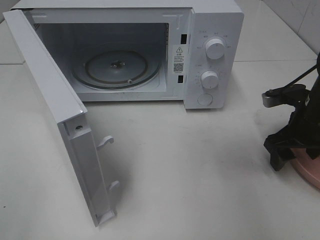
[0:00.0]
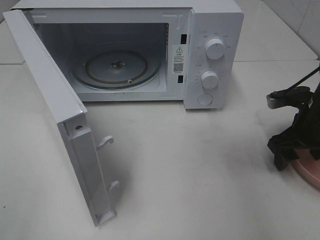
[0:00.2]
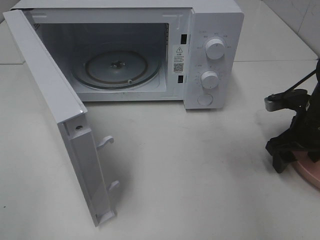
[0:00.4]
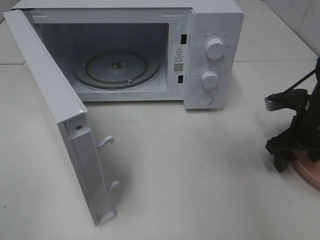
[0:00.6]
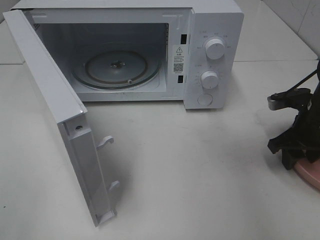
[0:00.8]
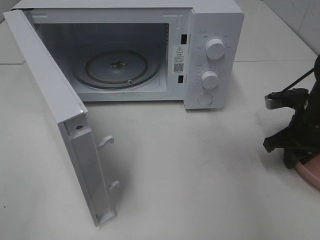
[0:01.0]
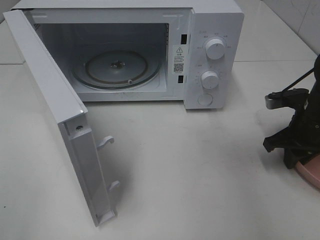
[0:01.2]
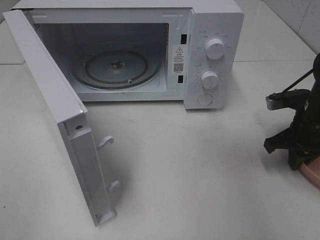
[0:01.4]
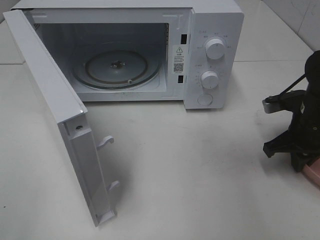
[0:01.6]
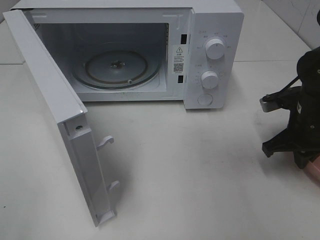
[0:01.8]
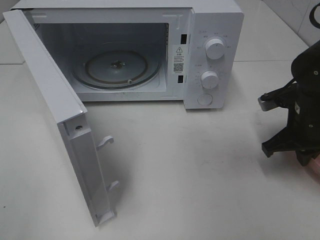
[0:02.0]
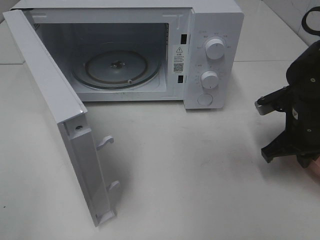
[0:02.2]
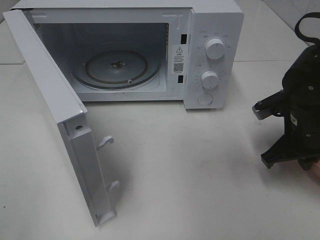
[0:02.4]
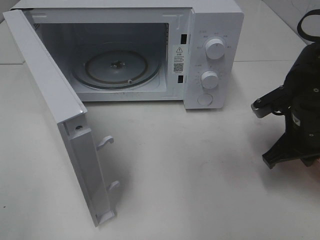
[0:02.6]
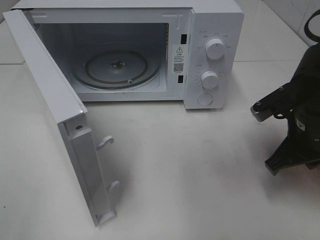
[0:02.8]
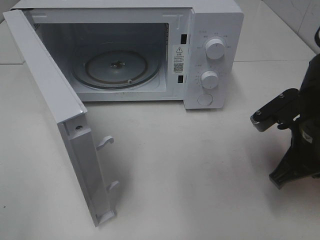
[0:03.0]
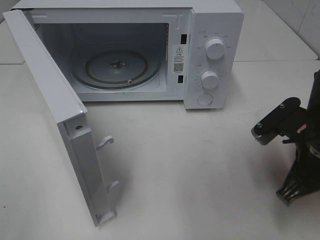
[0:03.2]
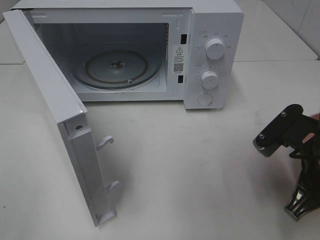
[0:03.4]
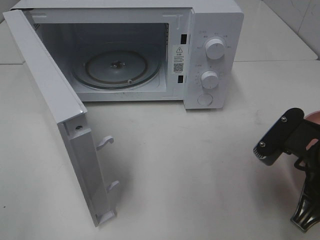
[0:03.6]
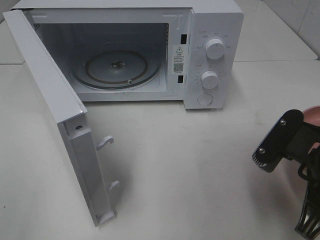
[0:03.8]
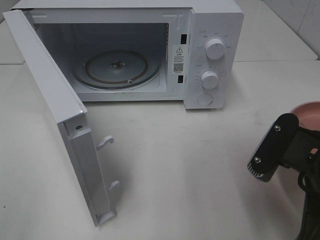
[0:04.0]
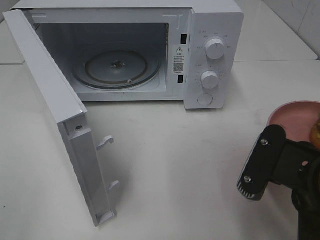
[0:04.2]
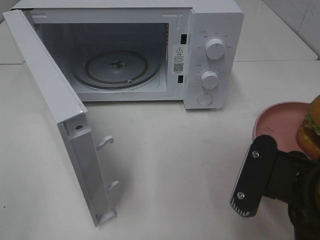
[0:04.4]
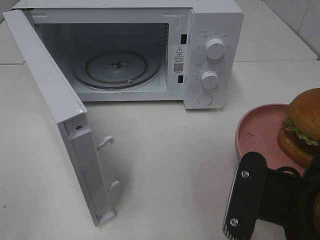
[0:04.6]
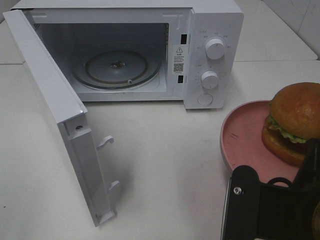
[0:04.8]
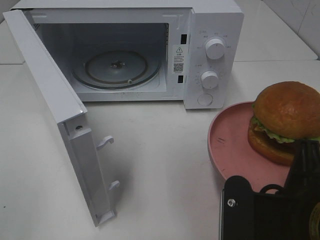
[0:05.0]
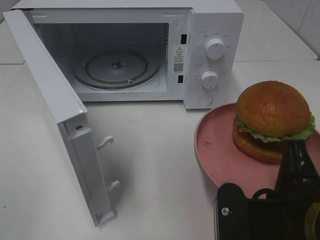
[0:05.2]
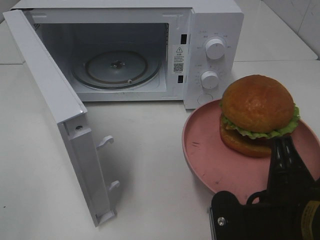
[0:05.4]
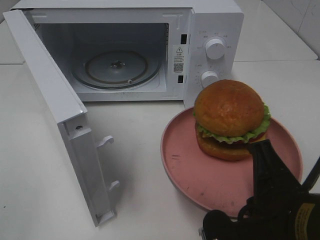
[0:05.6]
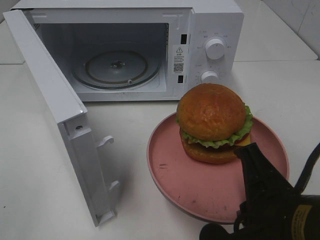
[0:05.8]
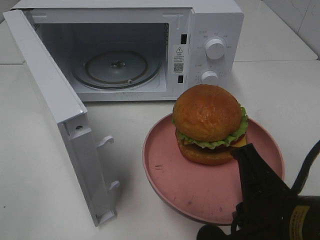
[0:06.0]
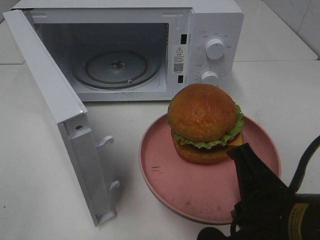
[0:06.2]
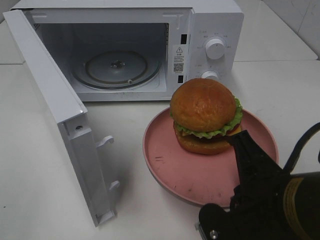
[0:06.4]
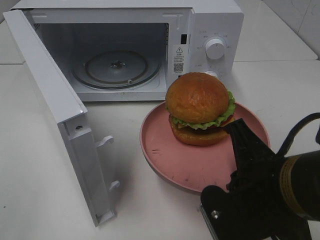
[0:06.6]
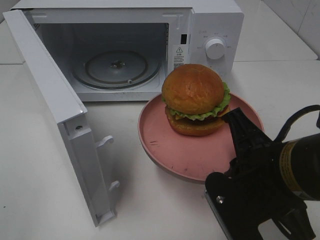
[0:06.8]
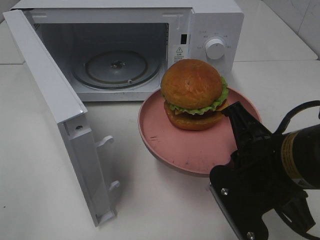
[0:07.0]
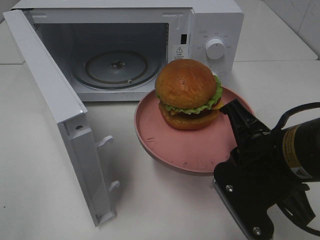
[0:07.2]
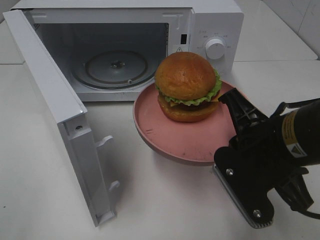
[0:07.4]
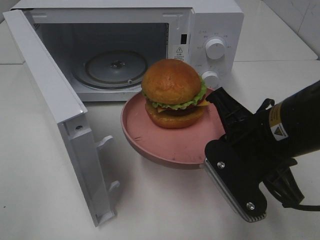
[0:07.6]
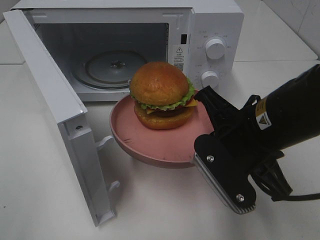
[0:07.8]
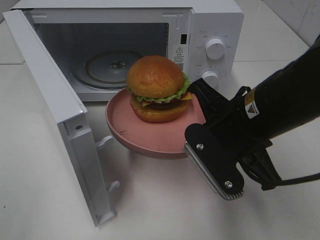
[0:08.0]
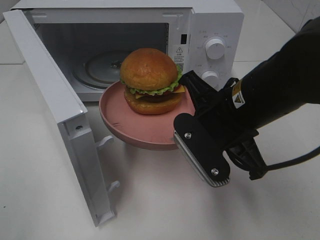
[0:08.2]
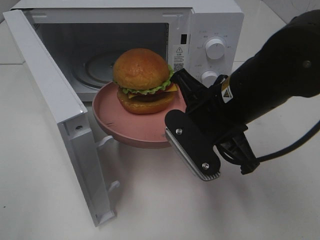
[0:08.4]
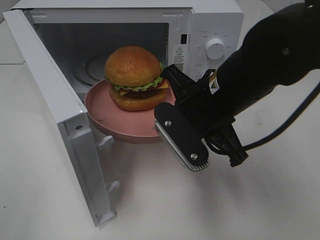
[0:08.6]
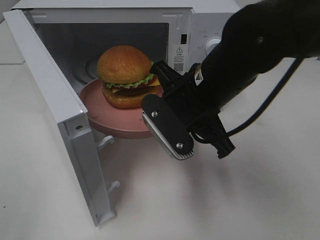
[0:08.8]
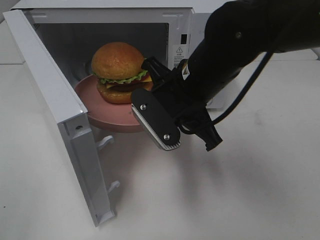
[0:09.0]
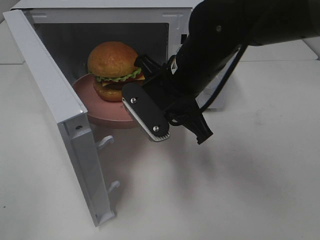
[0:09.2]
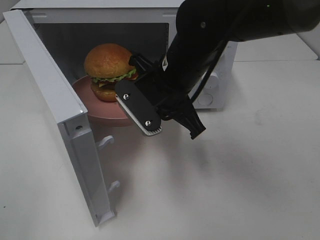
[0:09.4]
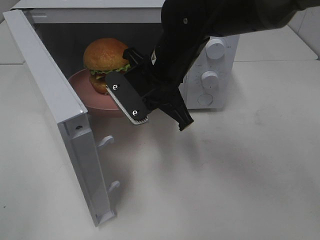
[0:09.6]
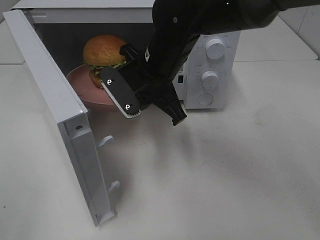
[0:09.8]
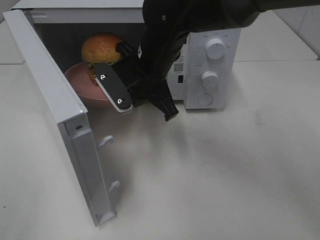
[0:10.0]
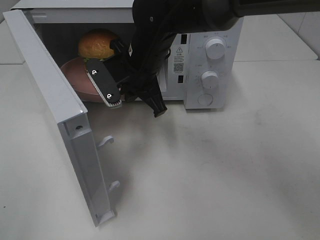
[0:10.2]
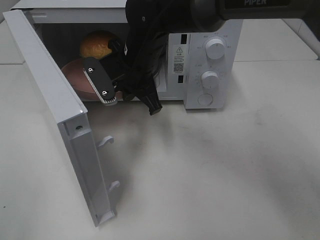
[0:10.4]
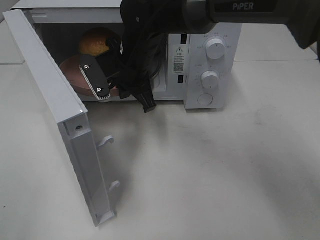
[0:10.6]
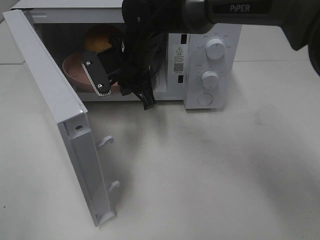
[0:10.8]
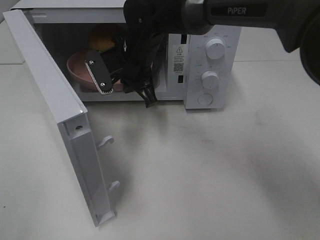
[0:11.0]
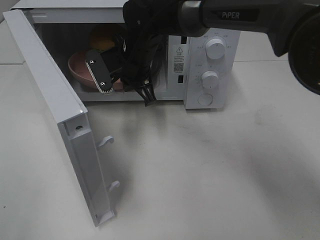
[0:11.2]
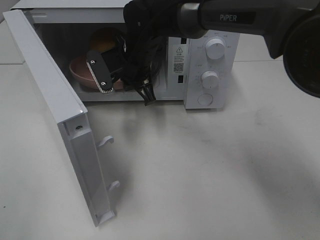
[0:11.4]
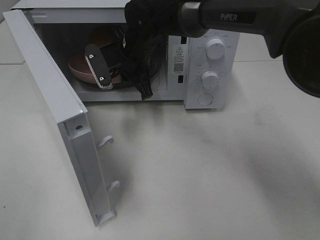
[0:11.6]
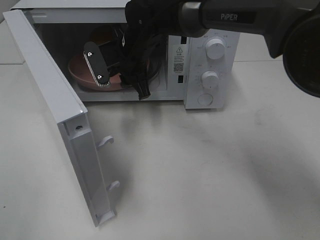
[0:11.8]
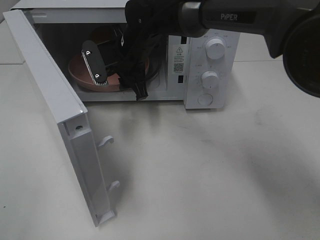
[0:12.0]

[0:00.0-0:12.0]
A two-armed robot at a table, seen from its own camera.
Task of the whole recording: Heat the burger.
Step, 0:02.0 to 0:12.0: Right hand: place the plate in the microwave.
0:00.0 to 0:01.6: The right gripper closes its fingers.
0:01.6 to 0:03.0: The right gripper travels backward and to the left by about 10 cm.
0:03.0 to 0:04.4: The right gripper heads backward and to the left, covering some 15 cm.
0:06.0 to 0:07.6: The right gripper is displaced forward by about 10 cm.
0:07.6 to 0:09.0: The right gripper heads forward and to the left, covering approximately 10 cm.
0:09.0 to 0:10.4: The right gripper shifts about 15 cm forward and to the left.
0:10.4 to 0:12.0: The right gripper opens.

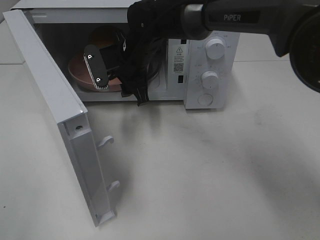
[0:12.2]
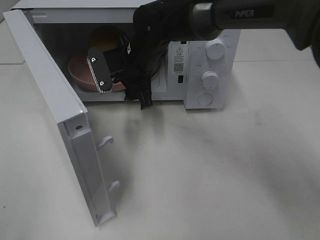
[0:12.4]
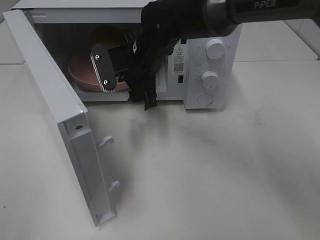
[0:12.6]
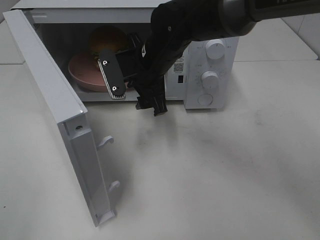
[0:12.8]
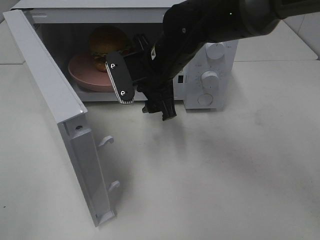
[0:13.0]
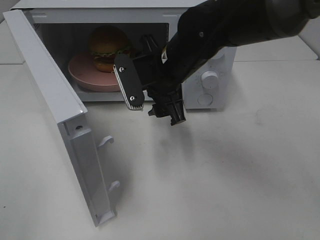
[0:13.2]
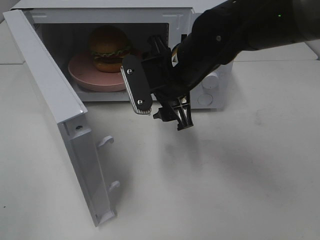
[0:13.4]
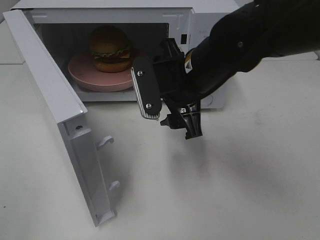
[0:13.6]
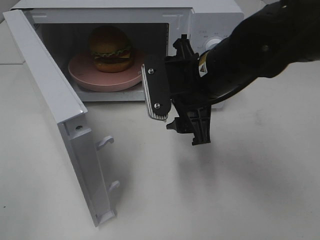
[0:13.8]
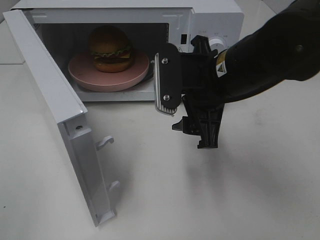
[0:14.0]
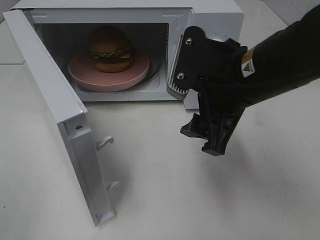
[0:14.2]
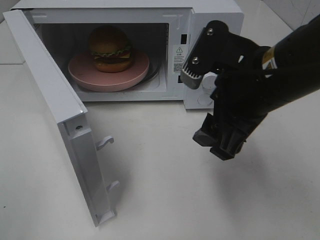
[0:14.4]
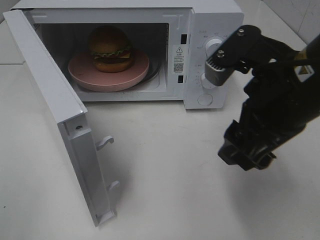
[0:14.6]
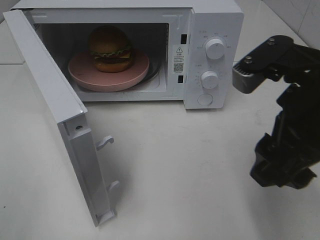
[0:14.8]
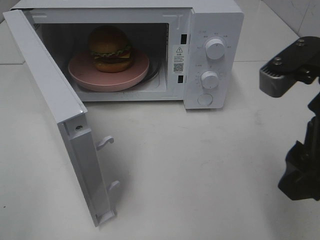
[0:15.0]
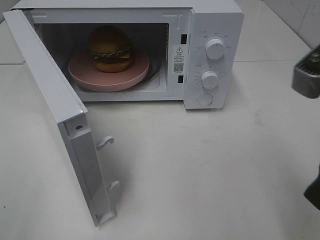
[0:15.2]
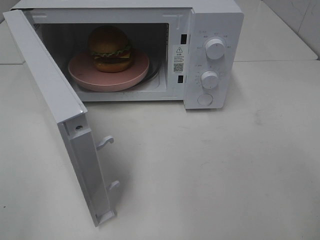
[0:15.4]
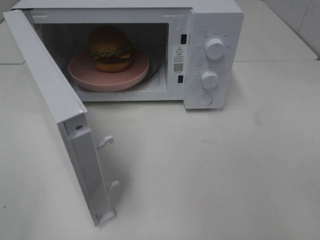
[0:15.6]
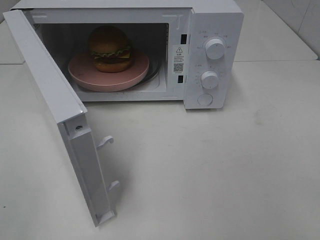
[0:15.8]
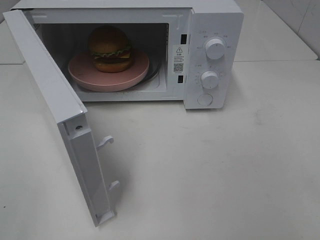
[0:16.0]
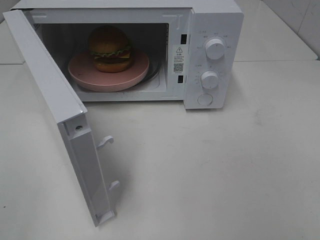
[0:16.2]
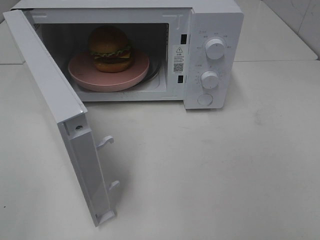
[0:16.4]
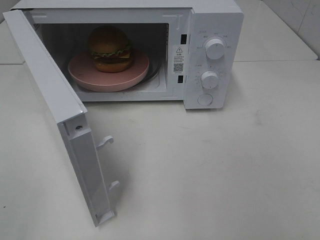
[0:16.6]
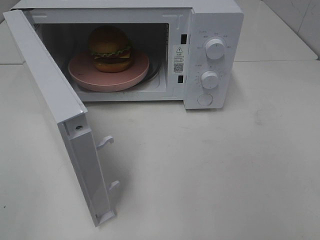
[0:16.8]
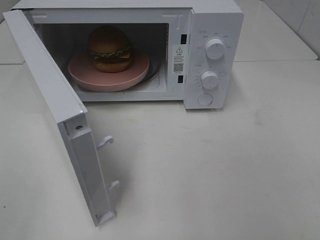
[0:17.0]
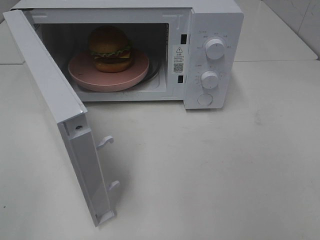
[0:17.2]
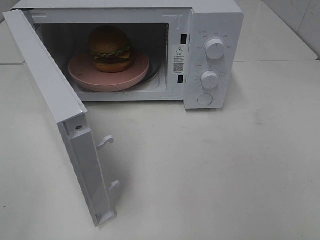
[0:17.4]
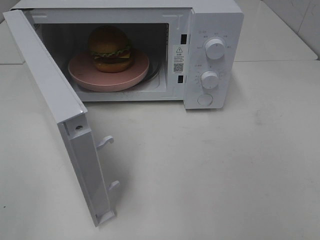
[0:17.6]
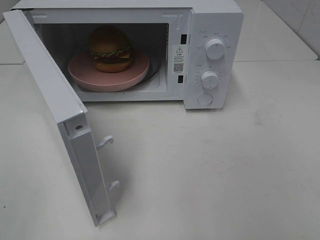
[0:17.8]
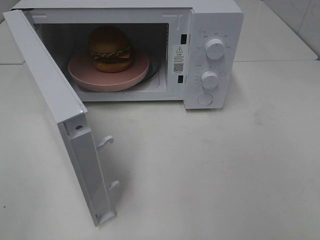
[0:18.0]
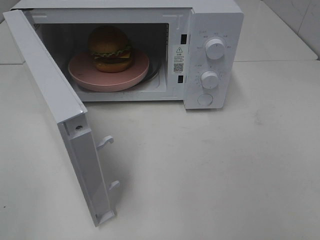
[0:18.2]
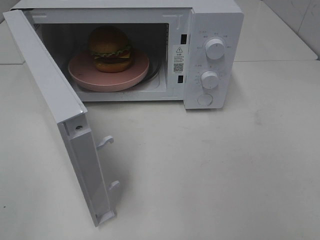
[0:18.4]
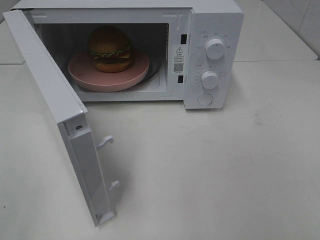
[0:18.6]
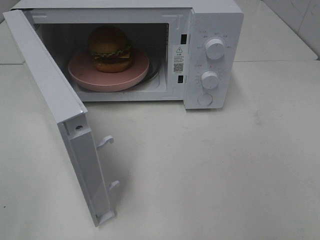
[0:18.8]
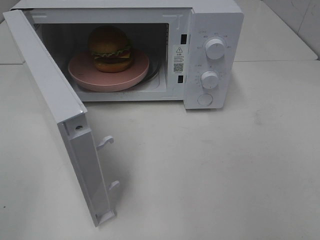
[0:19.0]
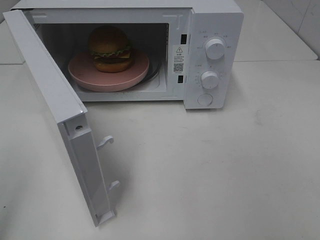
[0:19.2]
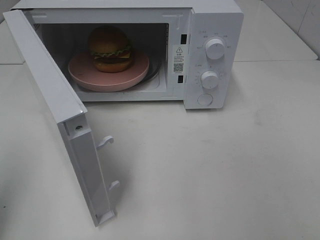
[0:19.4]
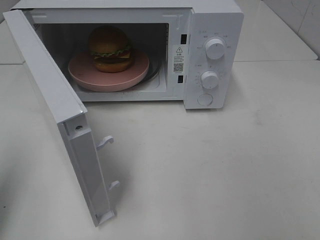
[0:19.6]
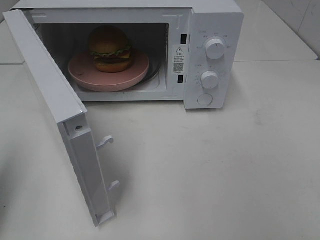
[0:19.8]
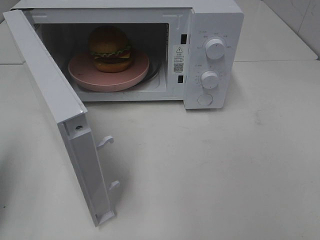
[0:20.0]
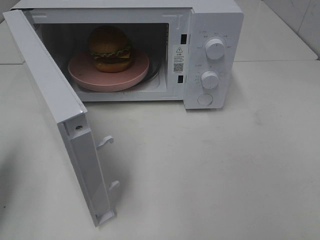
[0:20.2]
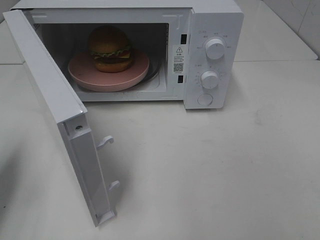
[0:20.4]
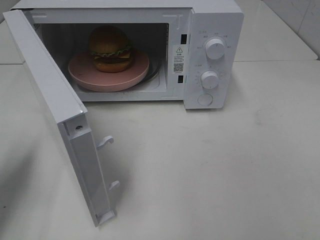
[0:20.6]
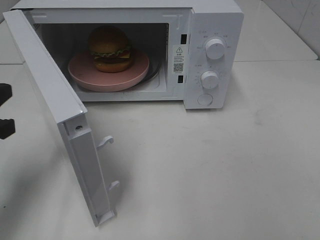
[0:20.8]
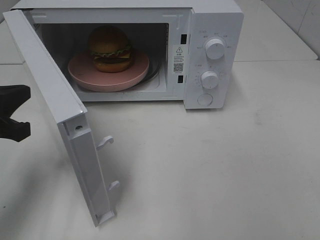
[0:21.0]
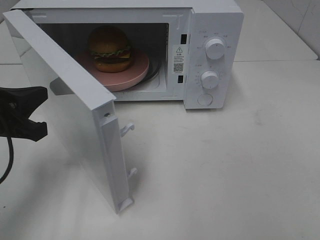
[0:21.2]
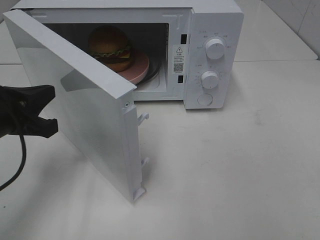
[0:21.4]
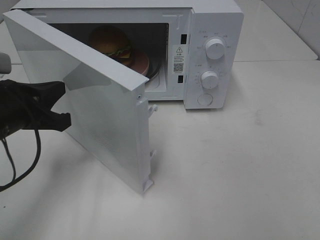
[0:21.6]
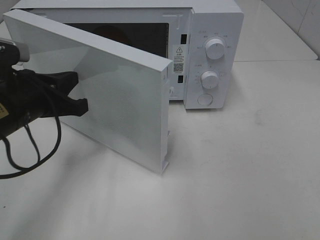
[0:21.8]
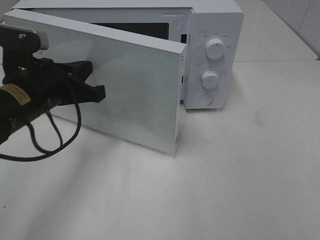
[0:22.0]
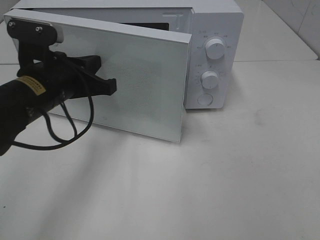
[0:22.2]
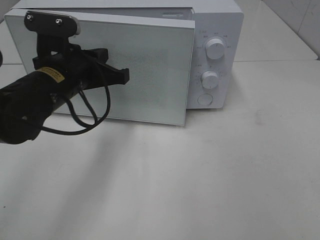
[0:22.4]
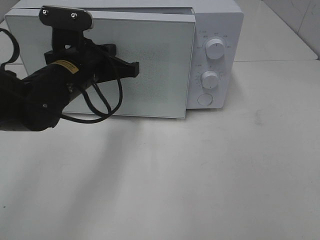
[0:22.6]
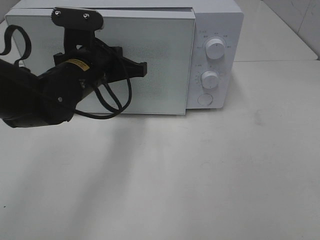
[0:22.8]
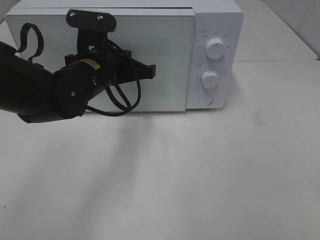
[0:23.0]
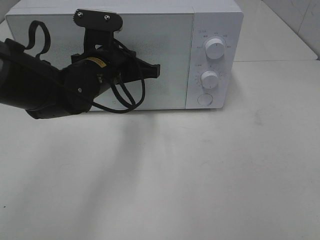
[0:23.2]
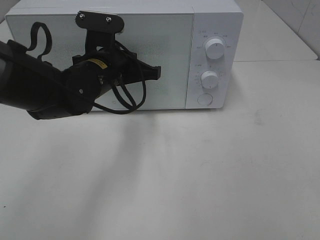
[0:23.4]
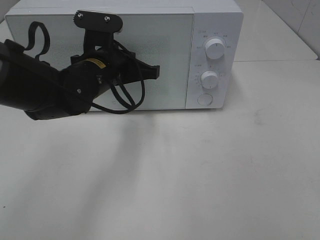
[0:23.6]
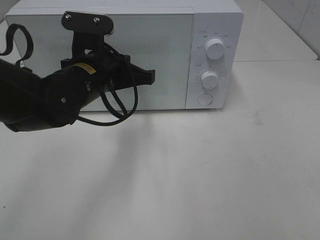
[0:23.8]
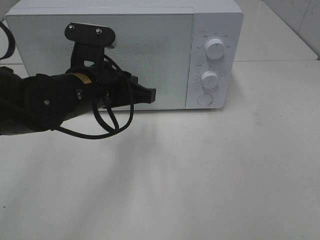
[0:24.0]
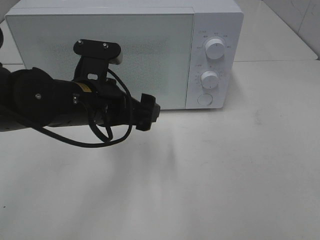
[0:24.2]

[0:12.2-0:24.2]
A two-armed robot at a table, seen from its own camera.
Task of the whole recording: Heat the burger.
Step, 0:12.2 to 0:24.0: Left hand: close the microwave door.
0:12.2 to 0:13.8: The right gripper heads backward and to the right, covering roughly 20 cm.
0:13.8 to 0:15.2: The right gripper shifts approximately 20 cm backward, to the right and upward.
0:15.2 to 0:16.6: The right gripper heads backward and to the right, covering roughly 15 cm.
0:16.6 to 0:18.2: Both grippers stay about where they are.
0:18.2 to 0:19.8: The left gripper is displaced forward by about 15 cm, and closes its fingers.
0:19.8 to 0:21.2: The left gripper moves to the right, downward and forward, approximately 15 cm.
0:21.2 to 0:22.6: The left gripper shifts some 15 cm to the right and forward.
0:22.6 to 0:24.2: The left gripper is displaced backward by some 5 cm, and opens its fingers.
